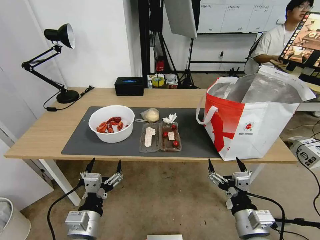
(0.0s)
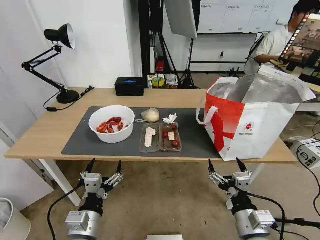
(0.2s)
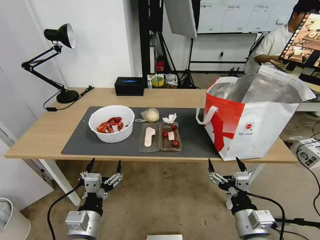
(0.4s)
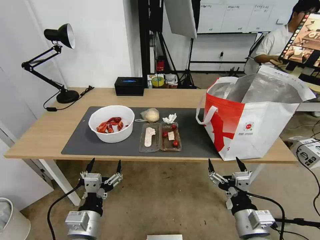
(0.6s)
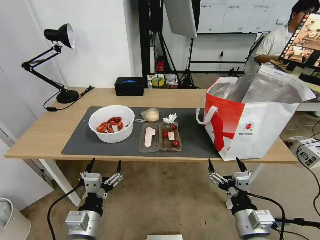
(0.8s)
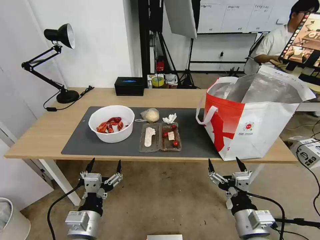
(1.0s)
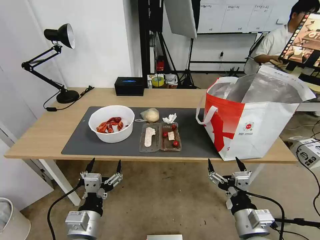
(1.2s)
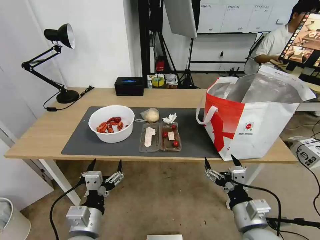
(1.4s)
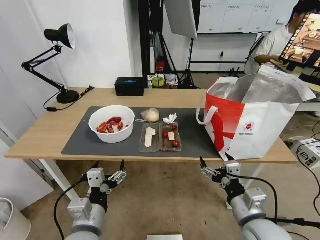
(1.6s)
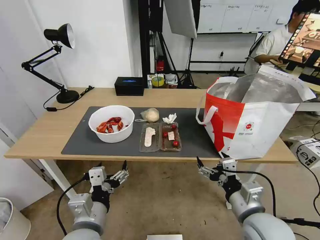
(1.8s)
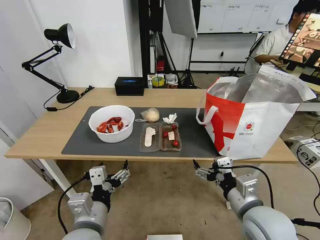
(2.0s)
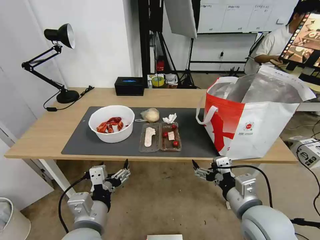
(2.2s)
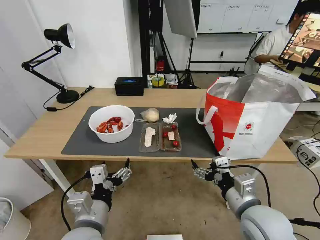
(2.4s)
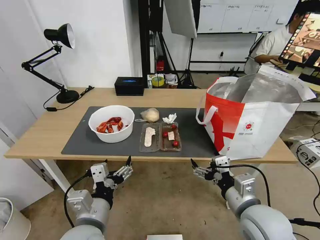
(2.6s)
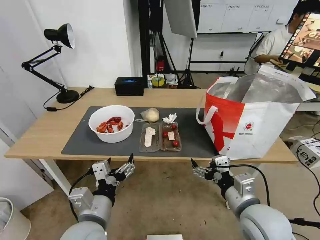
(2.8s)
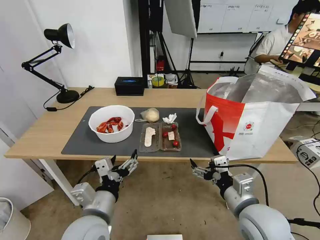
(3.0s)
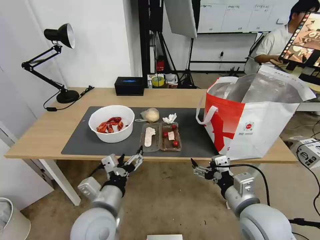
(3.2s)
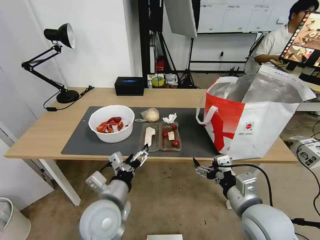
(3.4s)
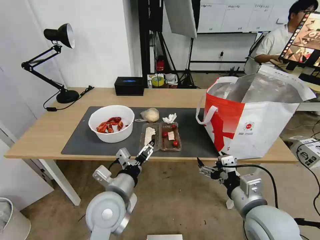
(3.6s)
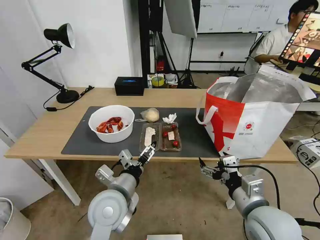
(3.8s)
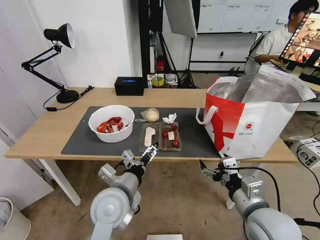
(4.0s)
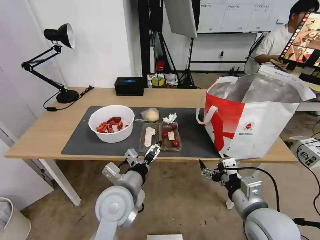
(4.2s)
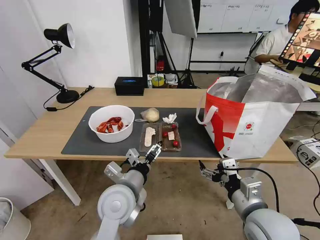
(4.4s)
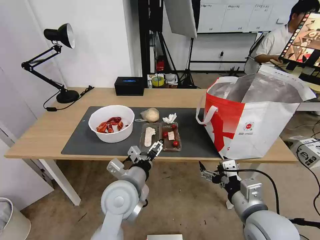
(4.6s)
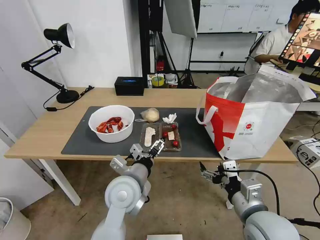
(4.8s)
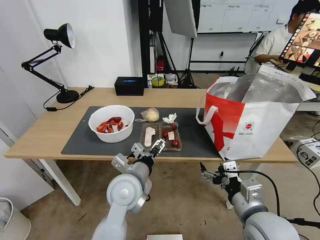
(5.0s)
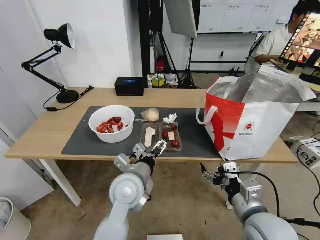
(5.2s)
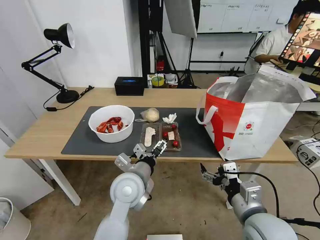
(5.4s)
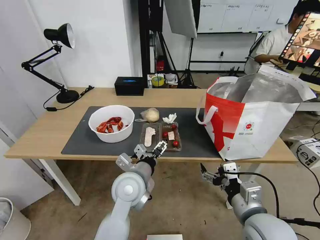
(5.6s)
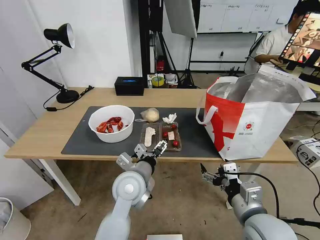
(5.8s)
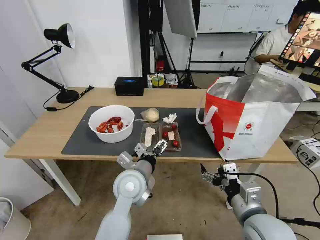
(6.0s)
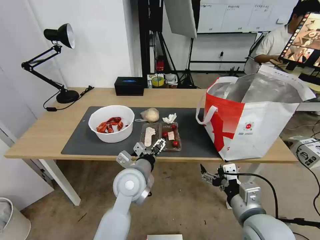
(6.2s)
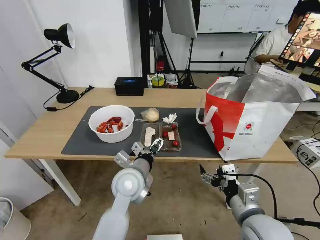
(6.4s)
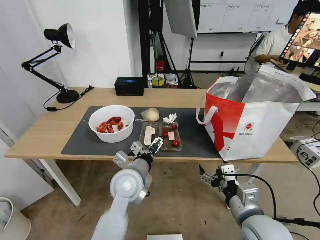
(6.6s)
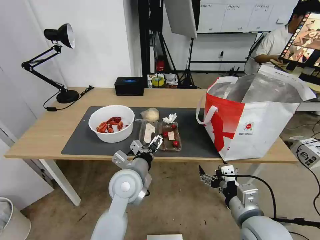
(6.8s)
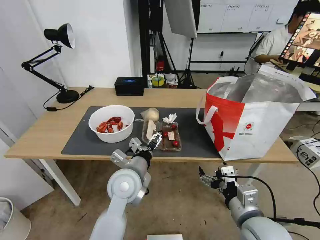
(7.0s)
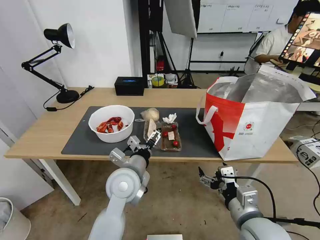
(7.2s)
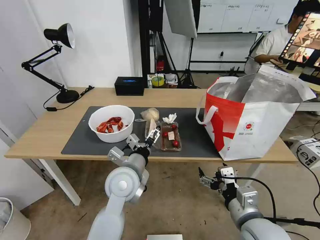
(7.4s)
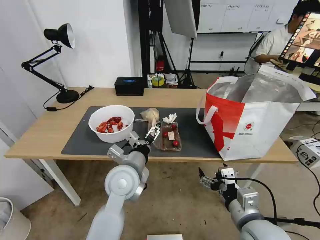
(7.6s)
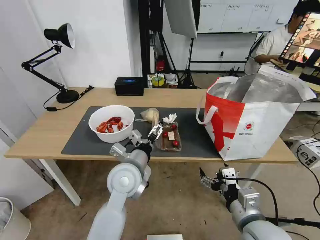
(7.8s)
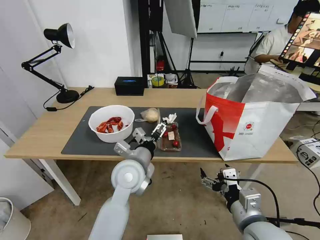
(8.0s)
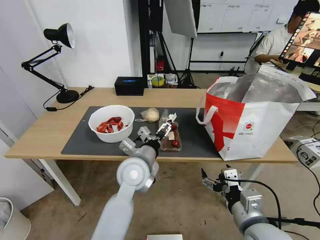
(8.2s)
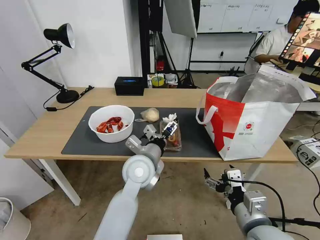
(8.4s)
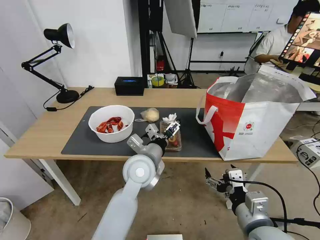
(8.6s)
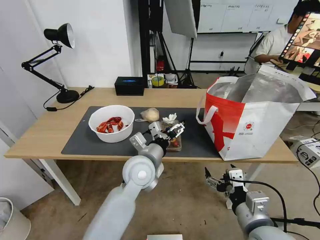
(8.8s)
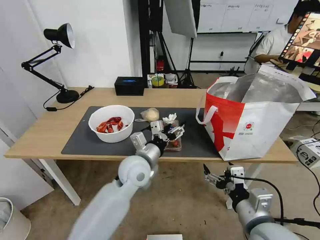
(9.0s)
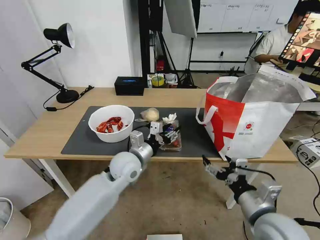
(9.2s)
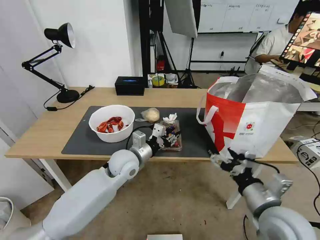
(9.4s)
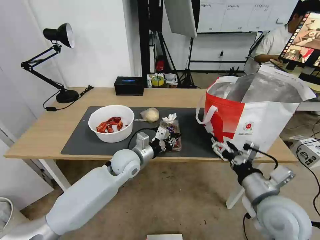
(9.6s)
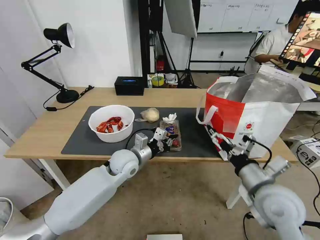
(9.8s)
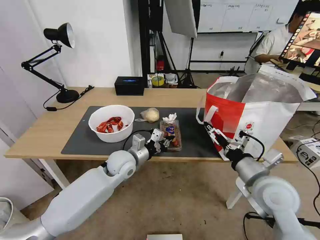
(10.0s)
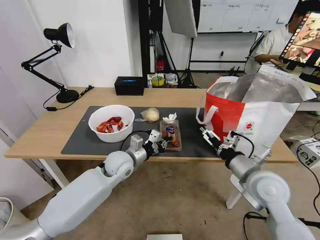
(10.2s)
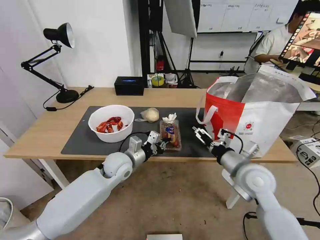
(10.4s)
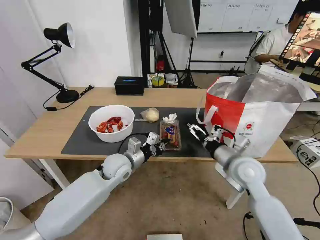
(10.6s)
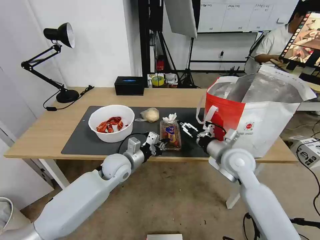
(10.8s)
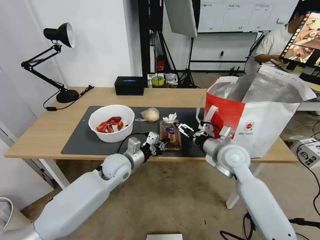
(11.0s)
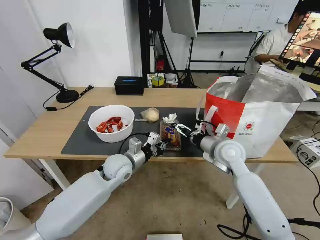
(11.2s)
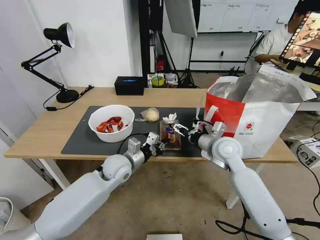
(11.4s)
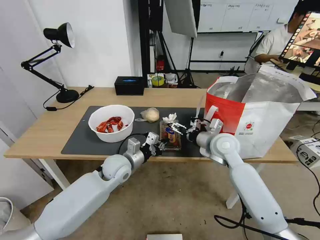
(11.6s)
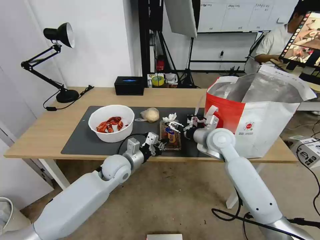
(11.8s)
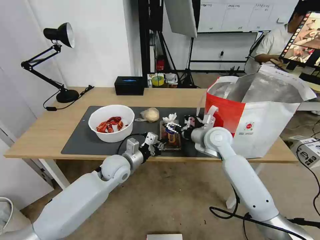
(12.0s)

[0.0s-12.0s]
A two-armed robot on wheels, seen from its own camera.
Task of the whole recording: Pick up the trash from the table and place it into the takeout bag.
3.0s to 4.4s: The left gripper moves forward and to the right, some 10 cm.
4.4s to 6.0s: The left gripper travels forward by roughly 5 cm.
6.0s to 7.6s: The grippers make only small movements.
9.0s to 10.4s: The left gripper is displaced to the left, downward and forward by roughly 10 cm, and closes its fingers. The right gripper travels forward by some 15 cm.
10.4s to 12.0s: The right gripper is displaced forward and to the left by roughly 15 cm.

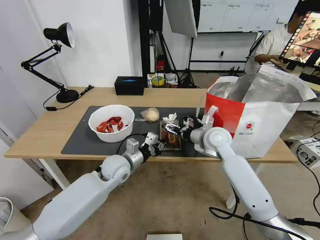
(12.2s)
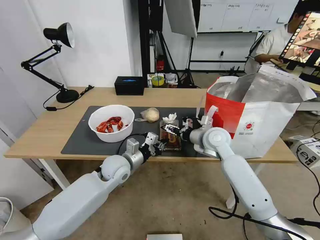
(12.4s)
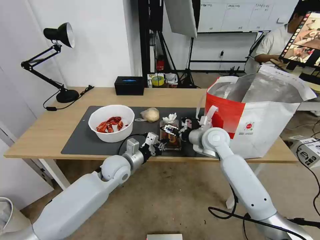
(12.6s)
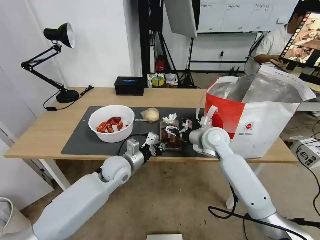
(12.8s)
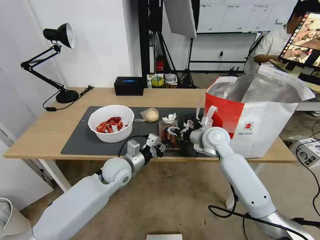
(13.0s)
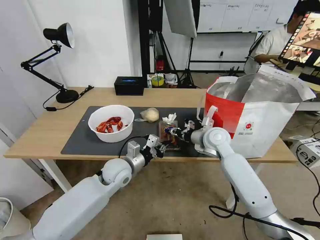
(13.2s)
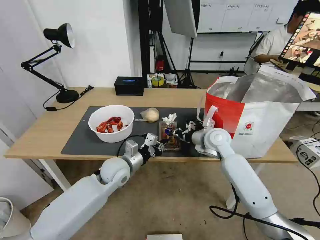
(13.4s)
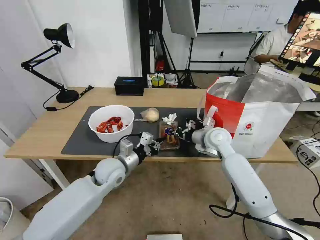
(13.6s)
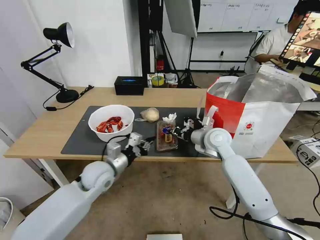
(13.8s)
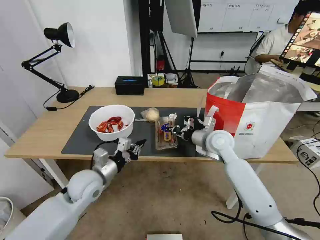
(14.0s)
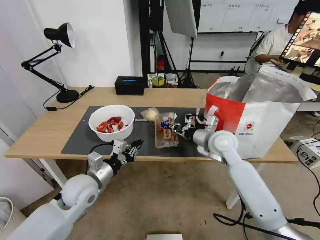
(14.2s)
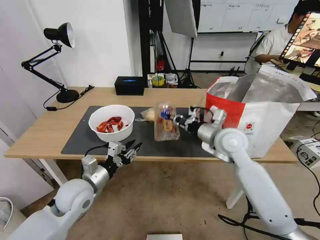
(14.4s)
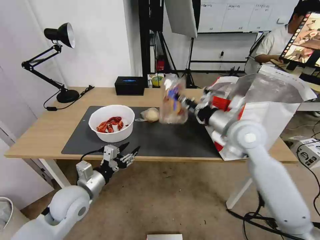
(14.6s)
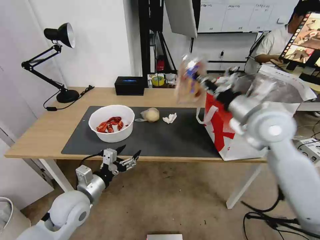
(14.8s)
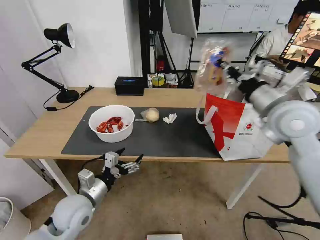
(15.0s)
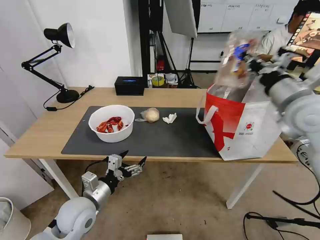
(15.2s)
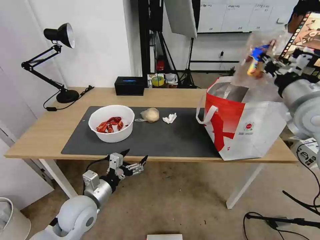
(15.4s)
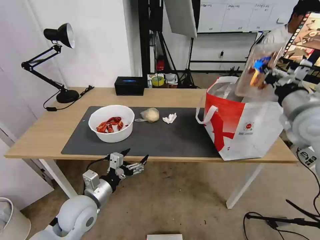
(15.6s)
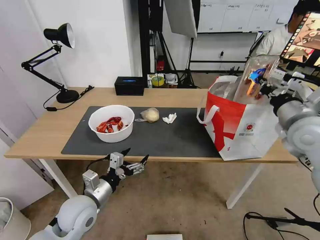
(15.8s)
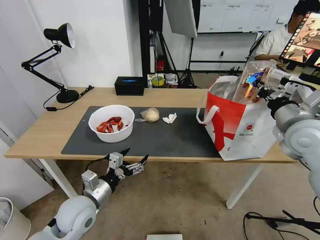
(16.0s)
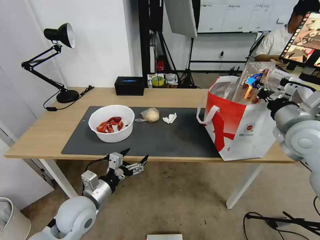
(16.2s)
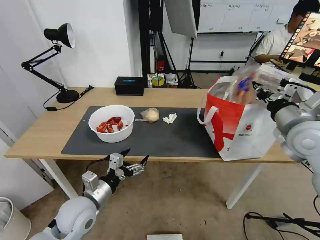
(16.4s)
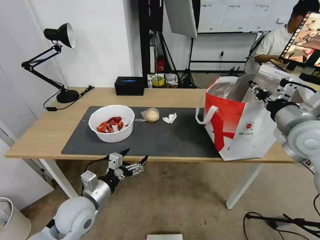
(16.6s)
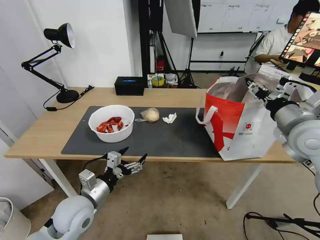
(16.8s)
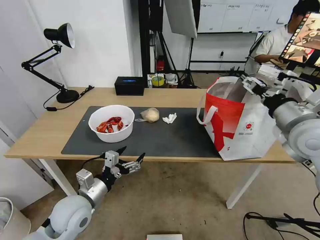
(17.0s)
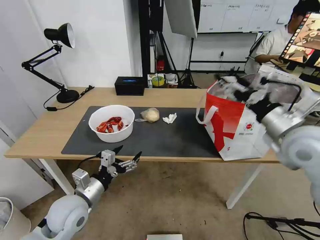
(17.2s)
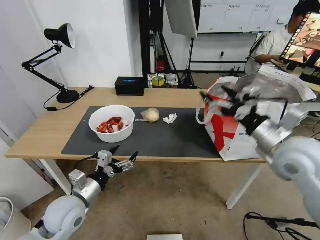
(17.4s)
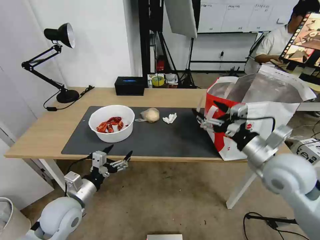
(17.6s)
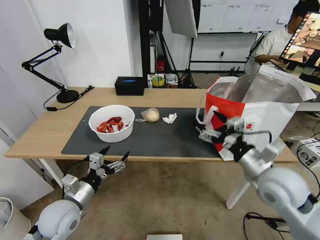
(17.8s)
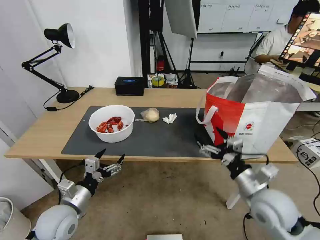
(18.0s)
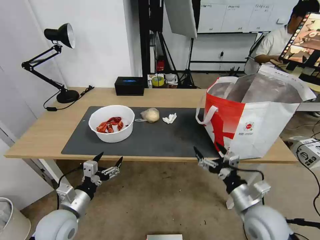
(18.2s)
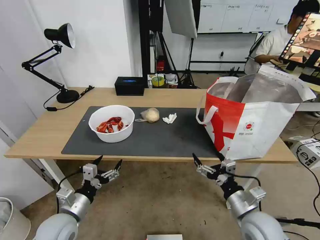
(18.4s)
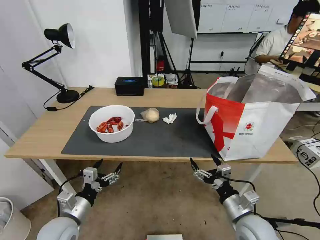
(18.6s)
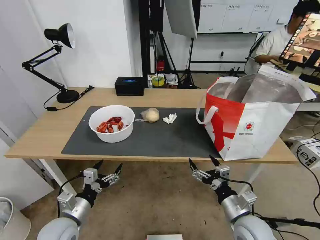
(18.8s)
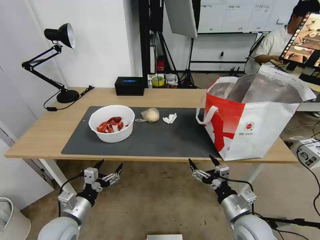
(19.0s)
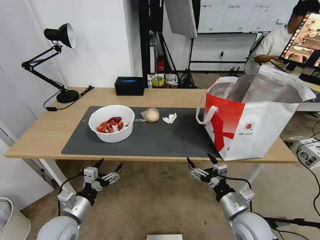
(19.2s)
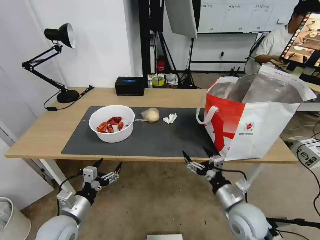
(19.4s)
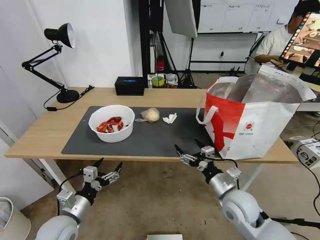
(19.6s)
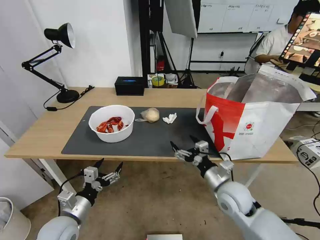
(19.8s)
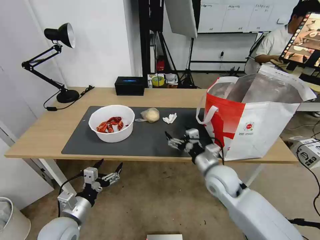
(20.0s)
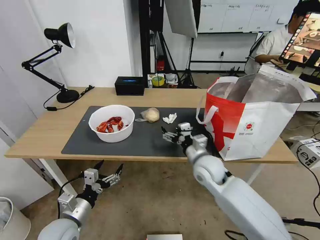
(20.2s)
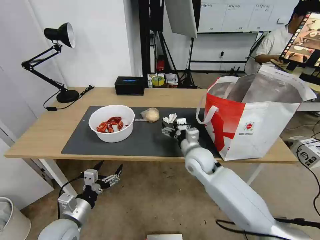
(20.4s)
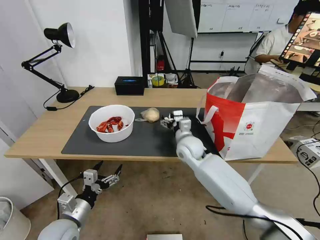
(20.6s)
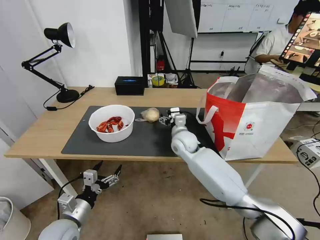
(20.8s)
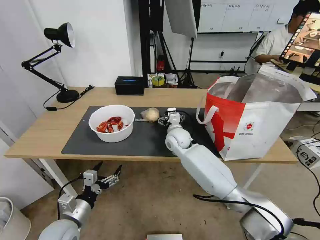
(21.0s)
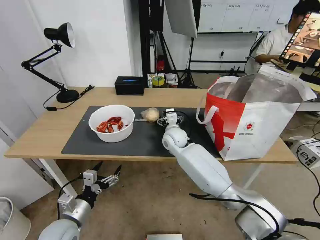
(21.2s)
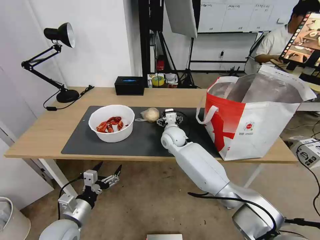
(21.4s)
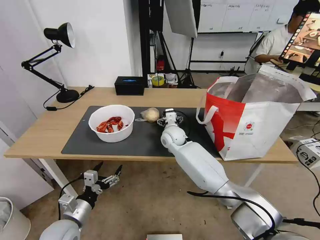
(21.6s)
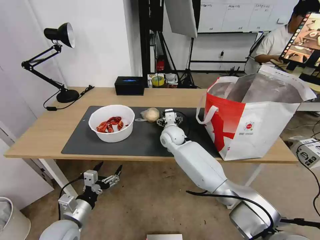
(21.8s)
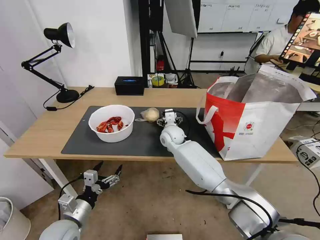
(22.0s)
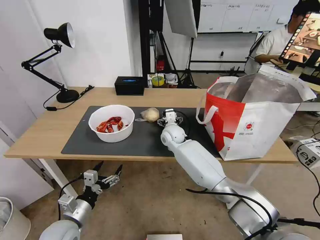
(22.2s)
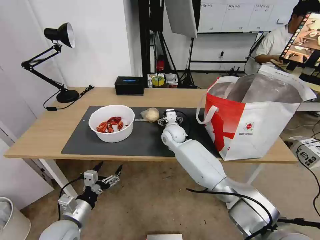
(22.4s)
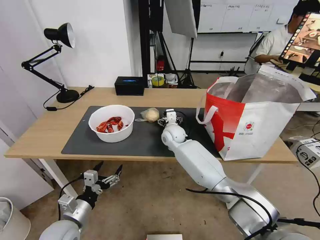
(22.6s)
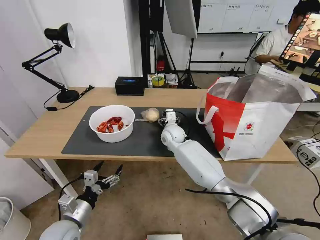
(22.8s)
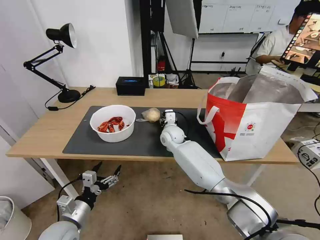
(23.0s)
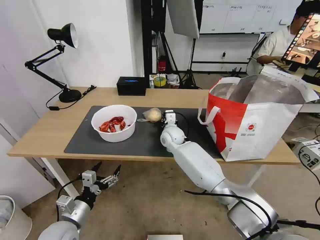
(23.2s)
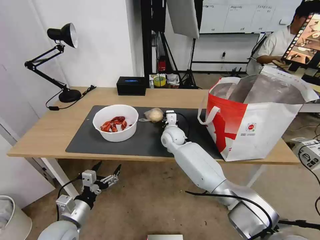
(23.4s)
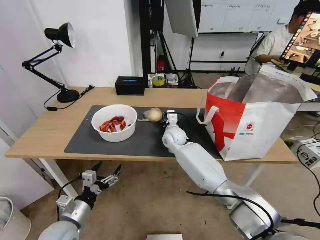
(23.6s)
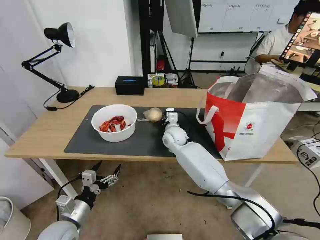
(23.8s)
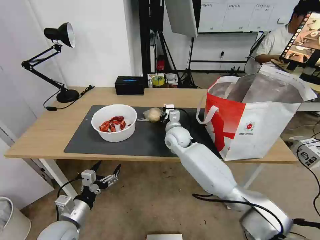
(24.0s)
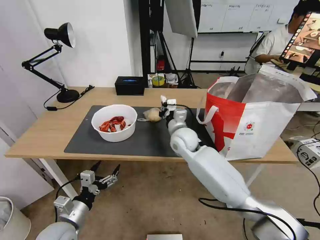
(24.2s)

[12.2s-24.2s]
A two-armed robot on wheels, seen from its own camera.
Task of the whole recording: Pick up the trash from the table and place it into the takeout bag.
12.2s to 13.8s: The right gripper closes its fingers.
13.8s to 15.2s: The left gripper goes about 10 cm backward, and opens. The right gripper is displaced upward, to the right and backward by roughly 25 cm.
15.2s to 16.6s: The right gripper shifts approximately 5 cm downward, and opens its fingers.
16.6s to 18.2s: The right gripper travels downward, backward and to the left by roughly 25 cm, and opens. Meanwhile the left gripper is displaced to the left by about 5 cm.
18.2s to 19.8s: The right gripper is displaced forward and to the left by roughly 10 cm.
19.8s to 21.2s: The right gripper travels forward and to the left by some 30 cm.
21.2s to 22.6s: The grippers move only a little.
22.6s to 24.2s: The right gripper goes some 10 cm backward and upward, and closes.
